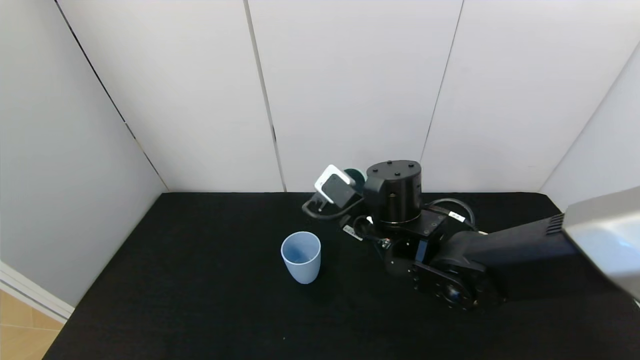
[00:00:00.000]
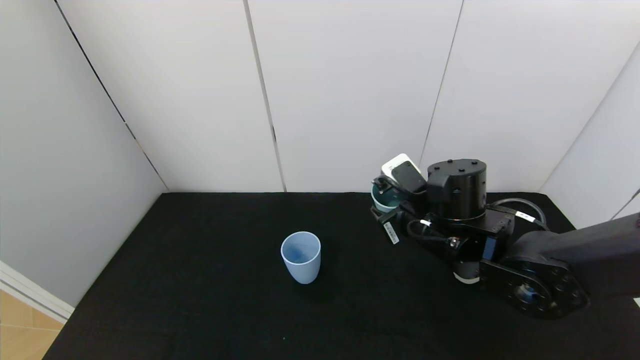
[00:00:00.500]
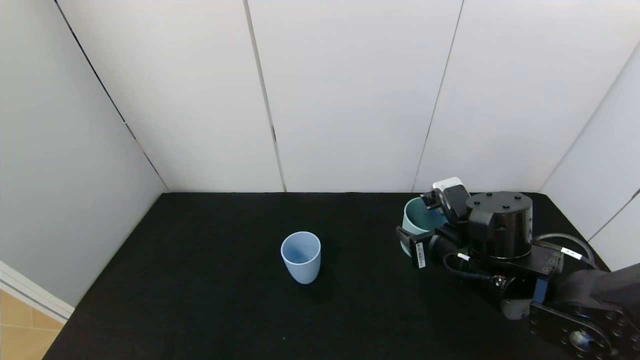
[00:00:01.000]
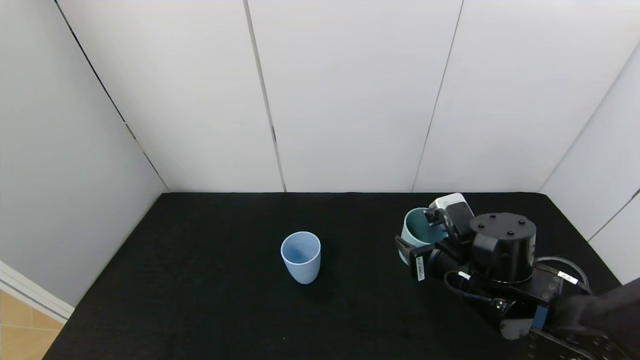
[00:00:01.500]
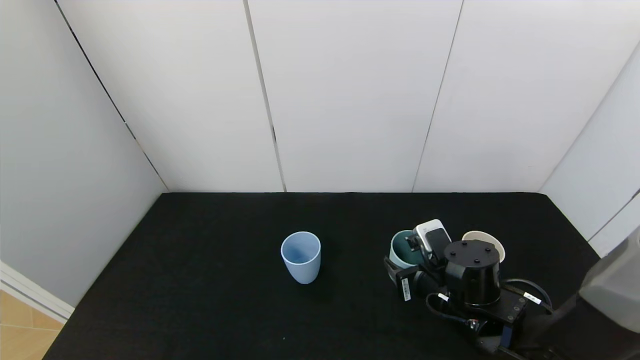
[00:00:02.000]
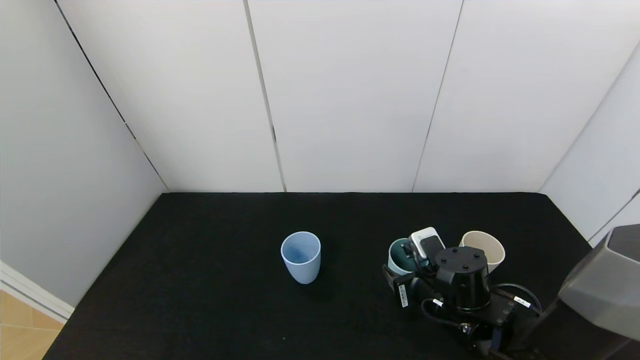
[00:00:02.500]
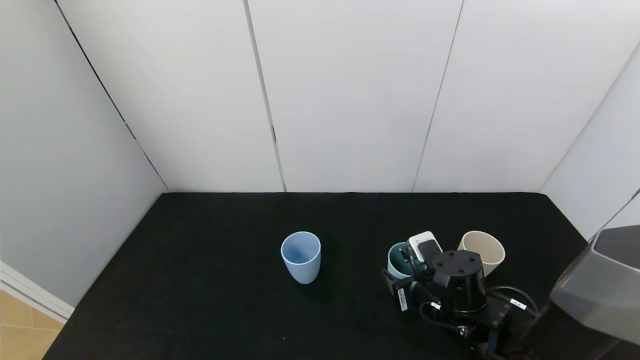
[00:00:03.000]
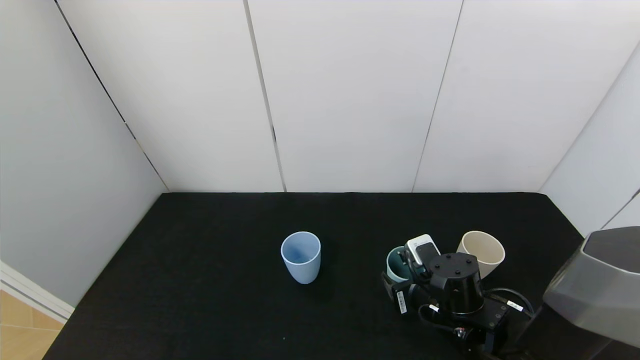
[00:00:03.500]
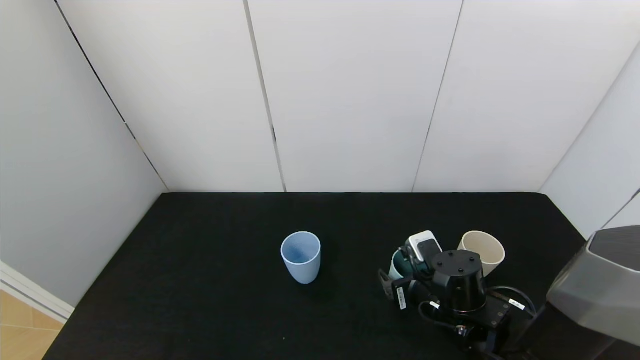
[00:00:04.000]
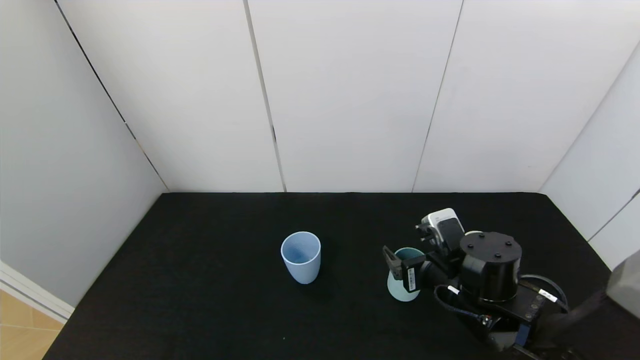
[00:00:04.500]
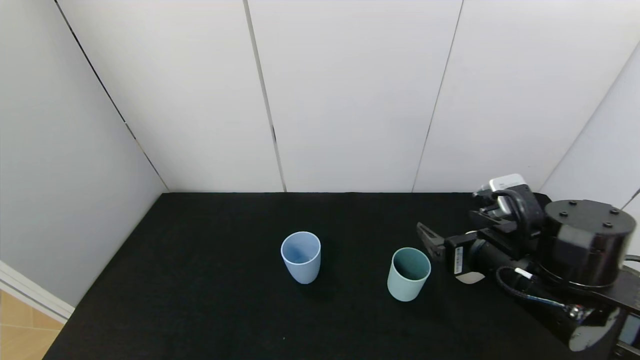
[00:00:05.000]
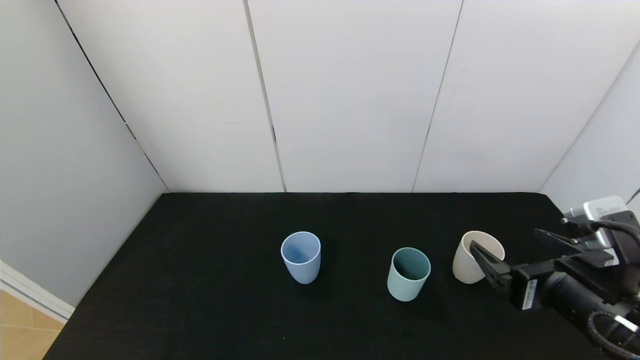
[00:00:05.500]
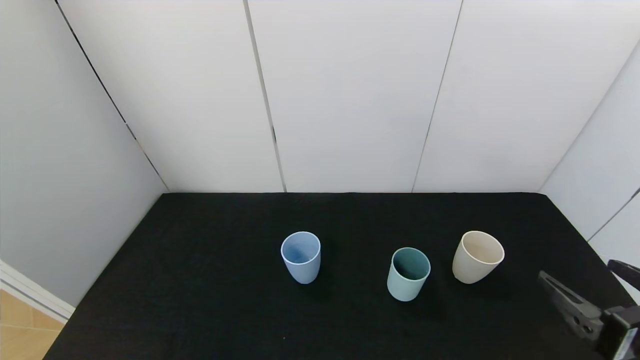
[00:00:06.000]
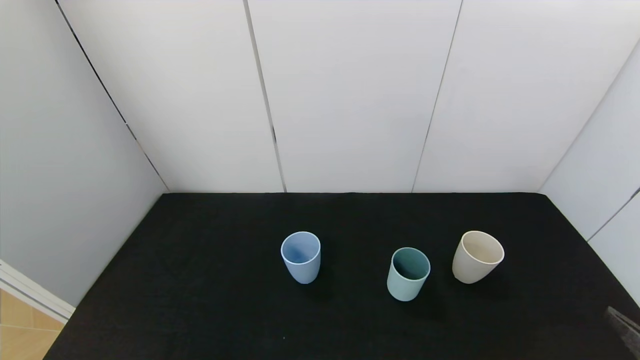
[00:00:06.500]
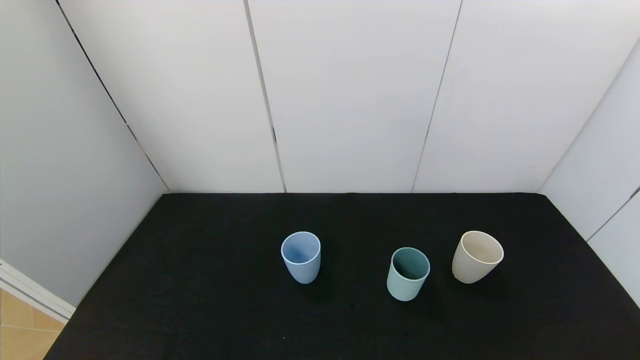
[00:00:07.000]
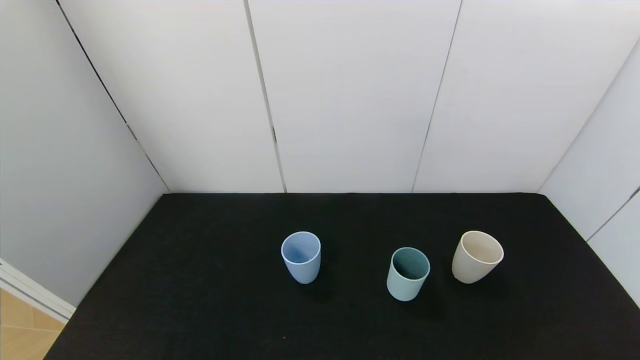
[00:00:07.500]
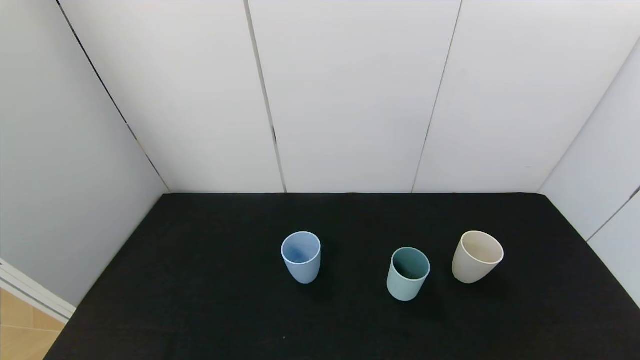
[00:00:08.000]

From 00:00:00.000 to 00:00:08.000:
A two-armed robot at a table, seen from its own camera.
Task of the whole recording: use the gripper to pour the water into the other two cups on black table.
Step, from 00:00:00.000 to 00:00:04.500: Place the green cup with the right gripper.
From 00:00:00.000 to 00:00:02.000: The right gripper goes about 15 cm downward and to the right.
From 00:00:02.000 to 00:00:04.000: The right gripper opens up.
From 00:00:04.000 to 00:00:06.000: The right gripper shifts roughly 25 cm backward, to the right and upward.
From 00:00:06.000 to 00:00:08.000: The right gripper shifts some 15 cm backward, downward and to the right.

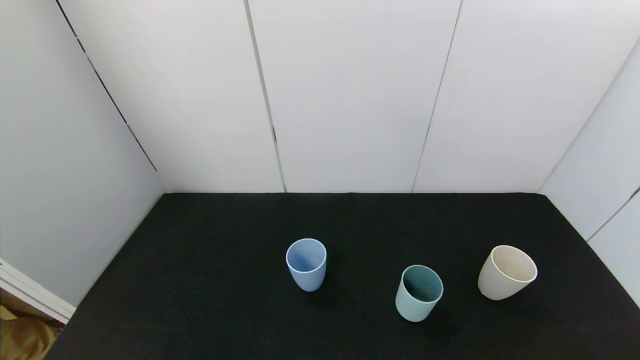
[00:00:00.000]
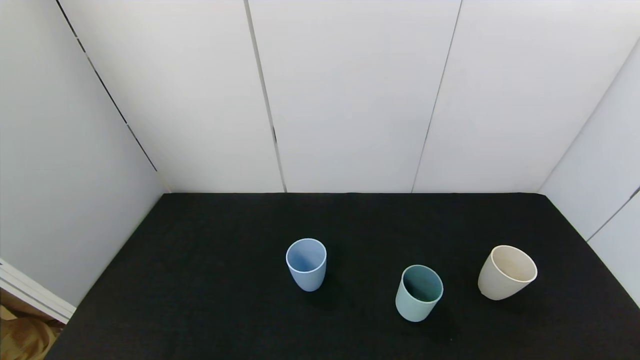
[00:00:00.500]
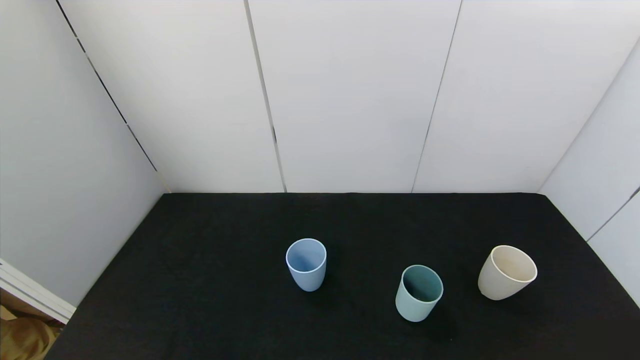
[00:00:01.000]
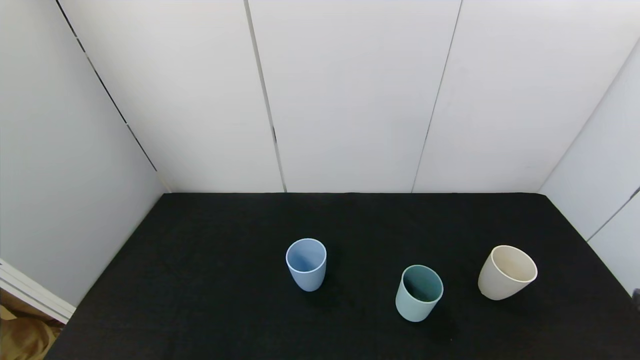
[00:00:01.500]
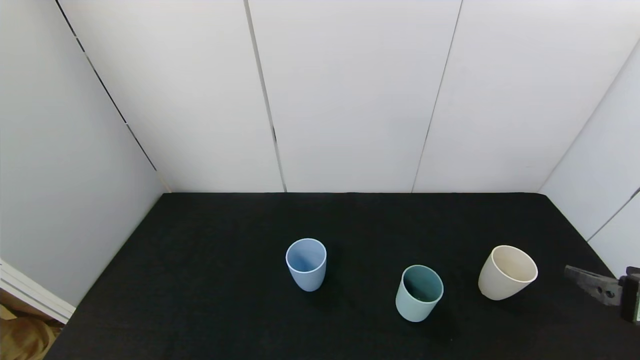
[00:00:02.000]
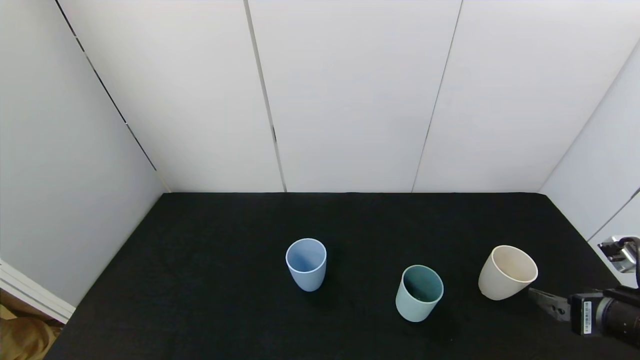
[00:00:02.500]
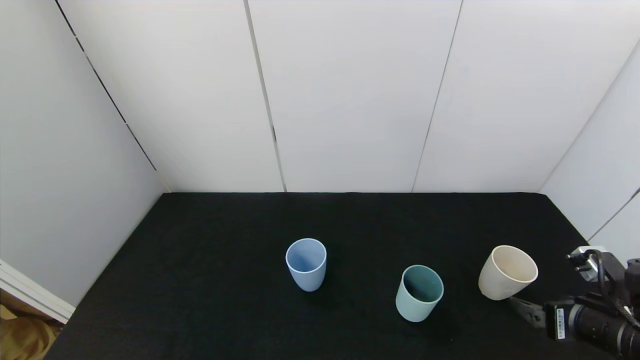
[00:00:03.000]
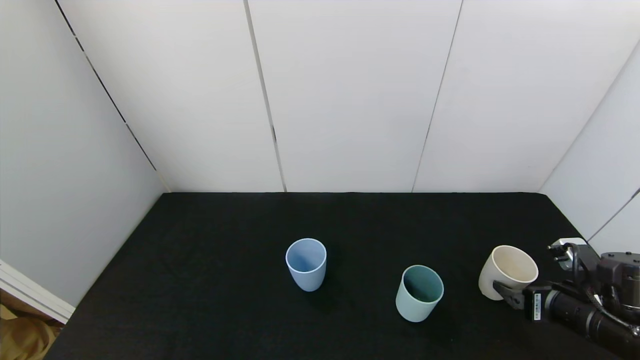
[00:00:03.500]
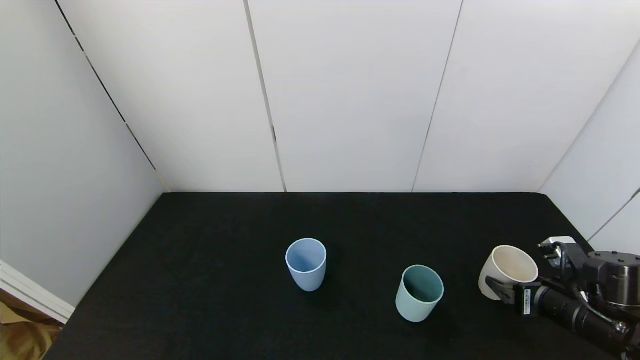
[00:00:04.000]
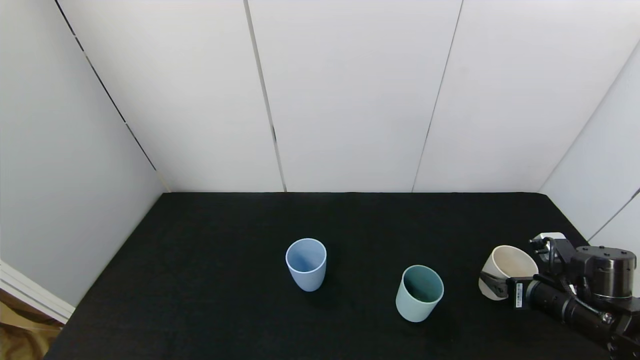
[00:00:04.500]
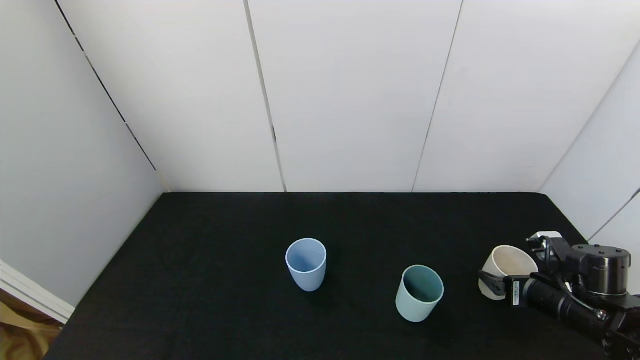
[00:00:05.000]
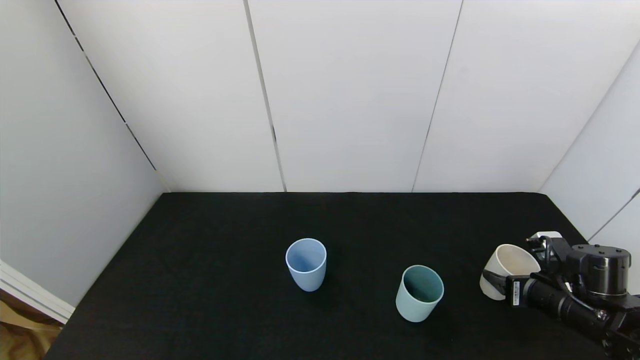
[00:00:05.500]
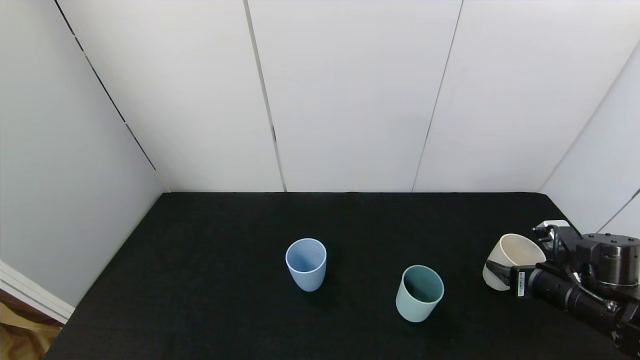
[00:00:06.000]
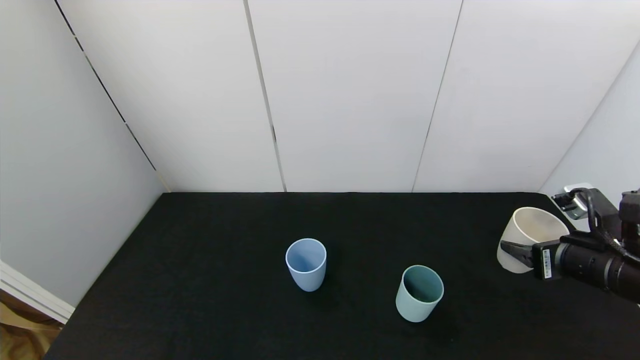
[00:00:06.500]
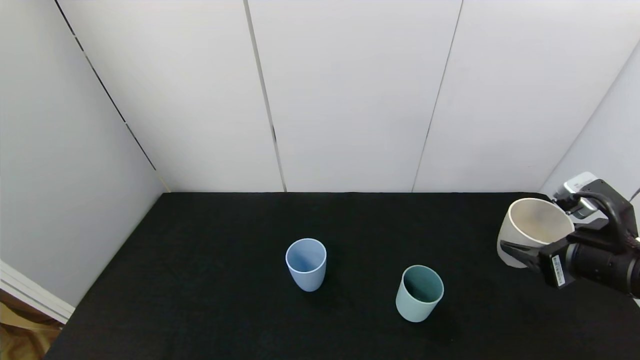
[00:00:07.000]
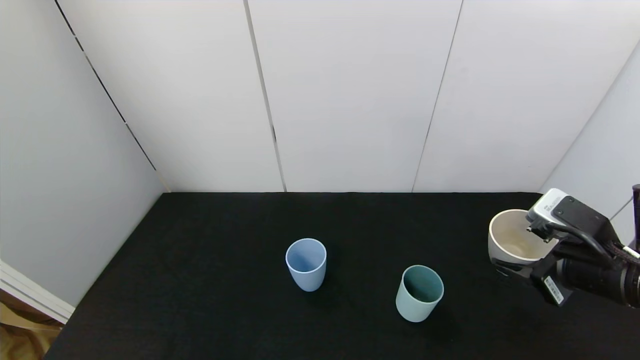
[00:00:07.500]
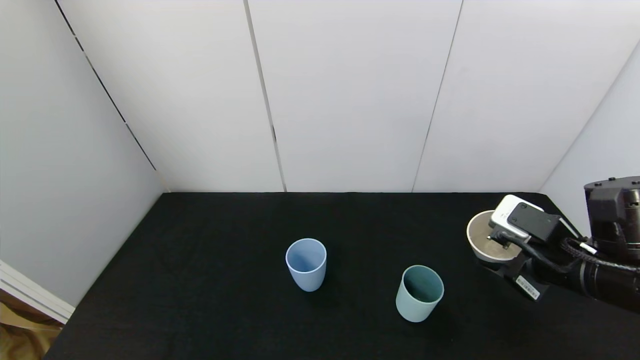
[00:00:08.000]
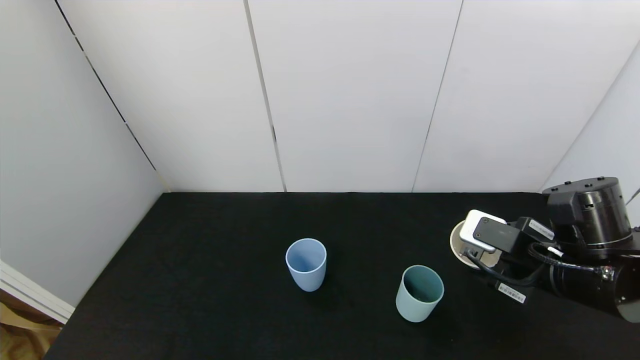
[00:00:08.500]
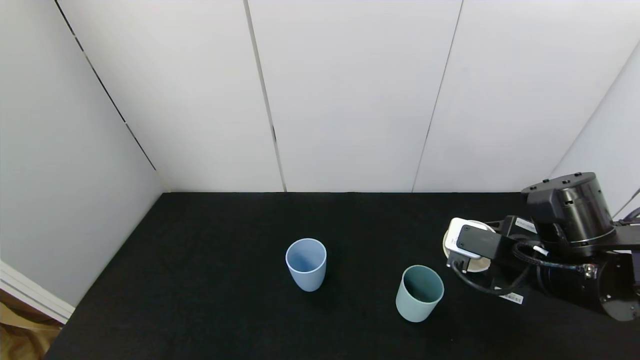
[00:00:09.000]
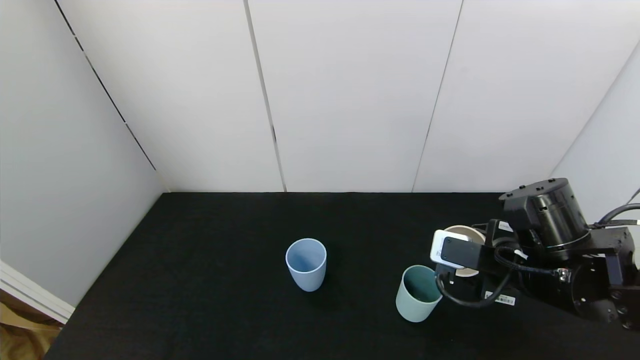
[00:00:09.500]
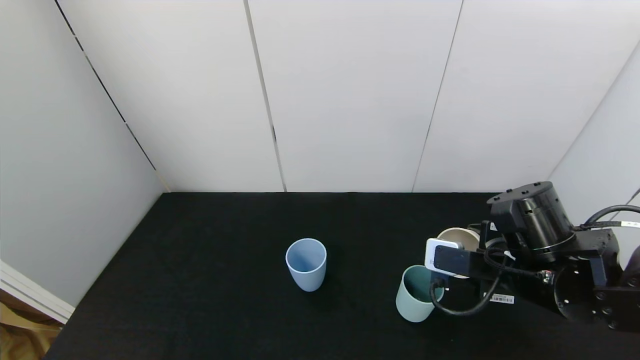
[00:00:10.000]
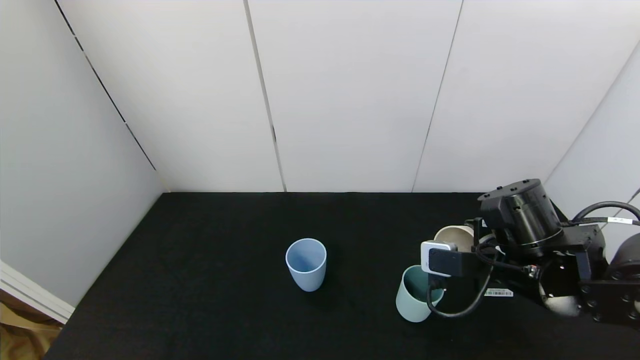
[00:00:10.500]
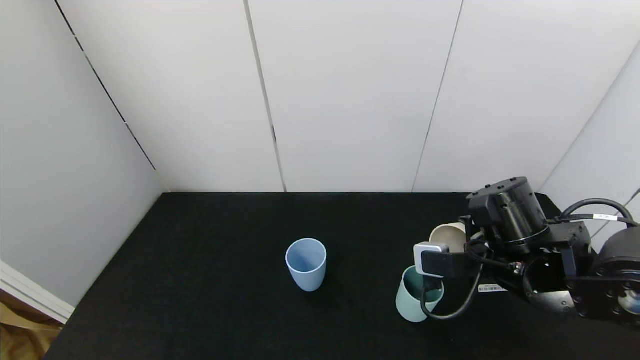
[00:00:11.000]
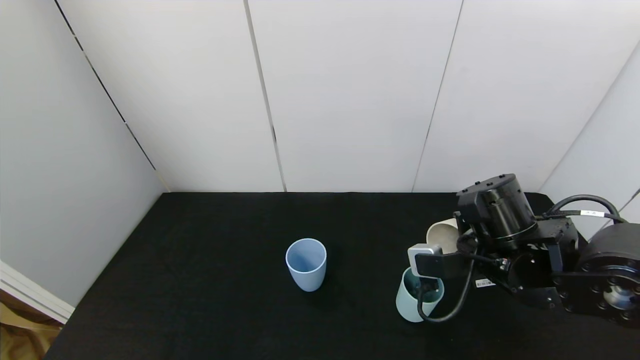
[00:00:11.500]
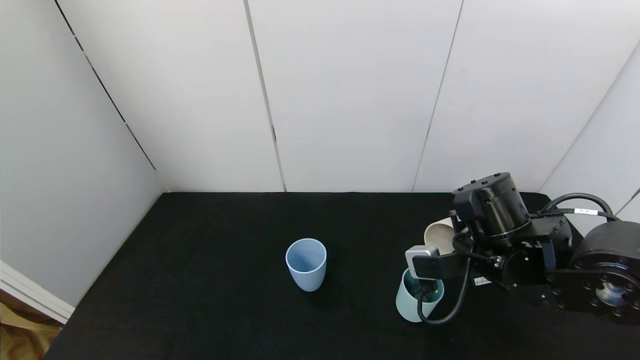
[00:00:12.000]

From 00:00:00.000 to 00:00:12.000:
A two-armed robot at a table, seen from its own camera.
Task of the whole recording: use the gripper to pour the water into the other two cups on black table.
Step, from 00:00:00.000 to 00:00:05.000: Grasp the white cup with the right gripper.
From 00:00:00.000 to 00:00:02.000: The right gripper heads forward, covering roughly 15 cm.
From 00:00:02.000 to 00:00:04.000: The right gripper moves downward and forward, roughly 15 cm.
From 00:00:04.000 to 00:00:06.000: The right gripper closes.
From 00:00:06.000 to 00:00:08.000: The right gripper moves upward and to the left, about 10 cm.
From 00:00:08.000 to 00:00:10.000: The right gripper travels to the left by roughly 5 cm.
